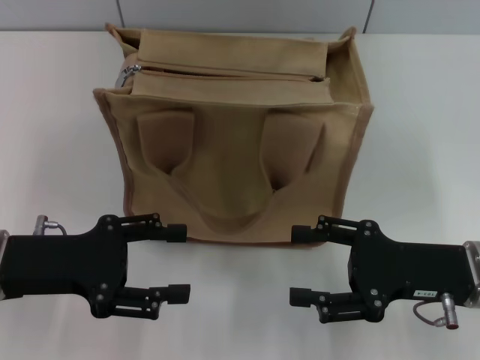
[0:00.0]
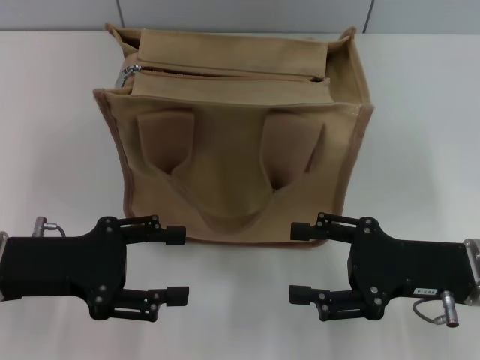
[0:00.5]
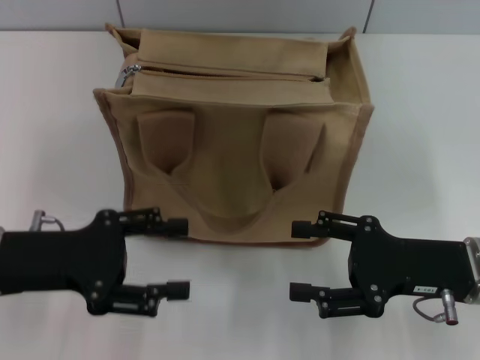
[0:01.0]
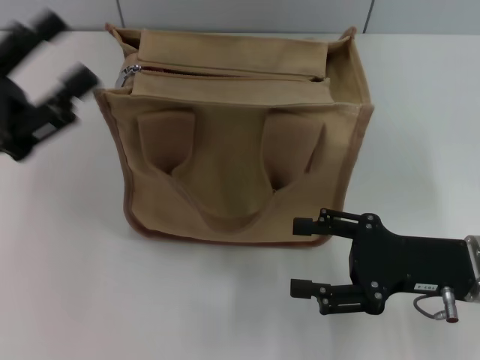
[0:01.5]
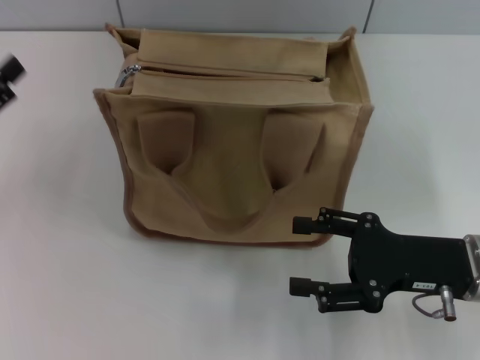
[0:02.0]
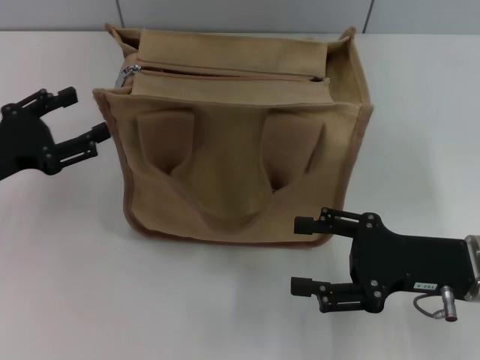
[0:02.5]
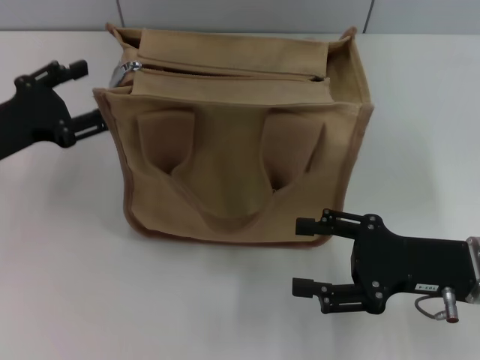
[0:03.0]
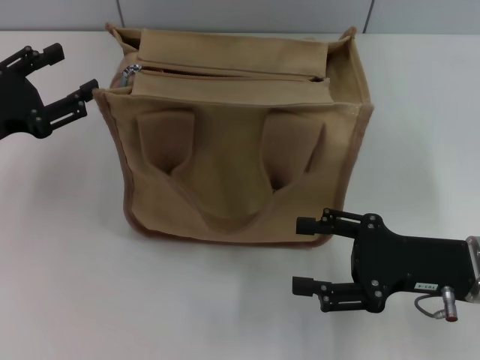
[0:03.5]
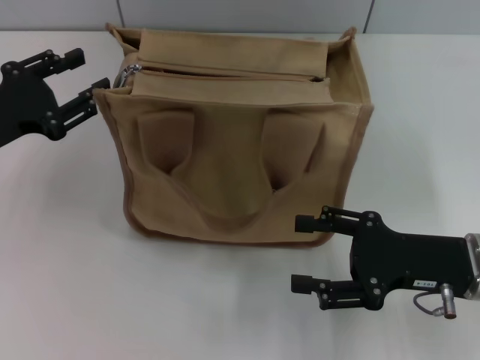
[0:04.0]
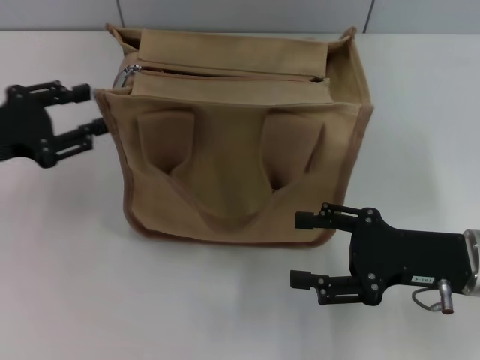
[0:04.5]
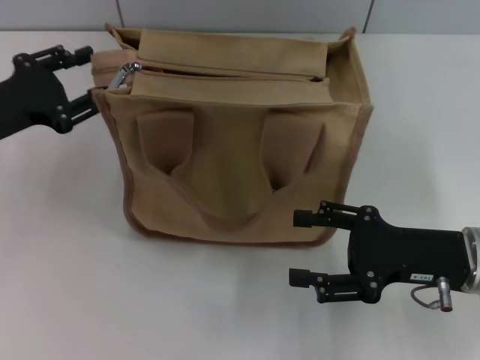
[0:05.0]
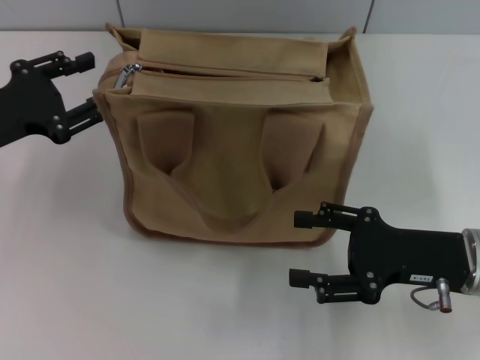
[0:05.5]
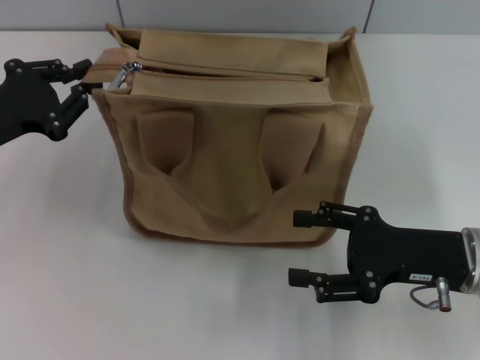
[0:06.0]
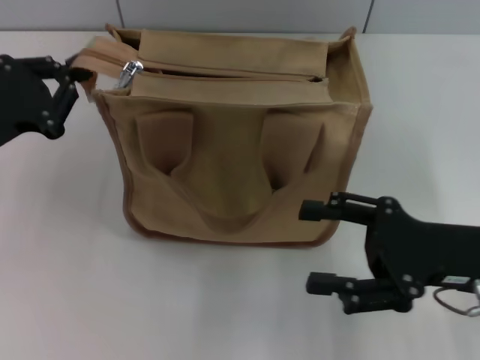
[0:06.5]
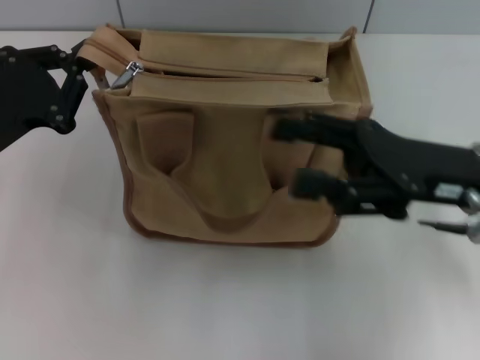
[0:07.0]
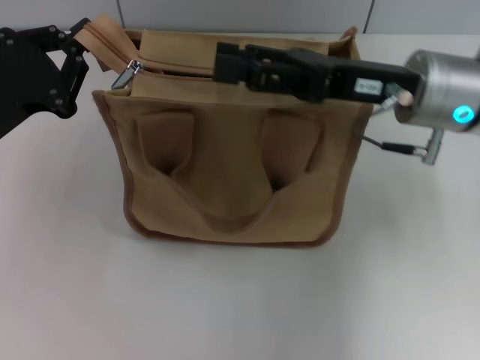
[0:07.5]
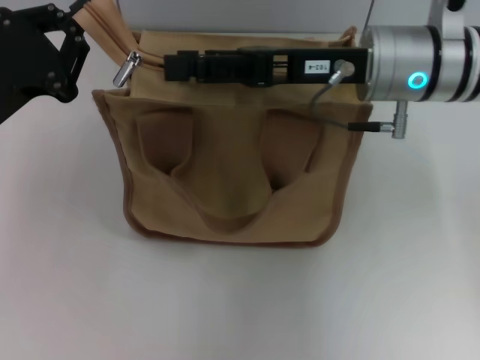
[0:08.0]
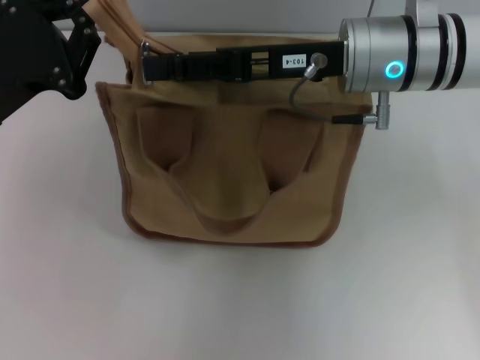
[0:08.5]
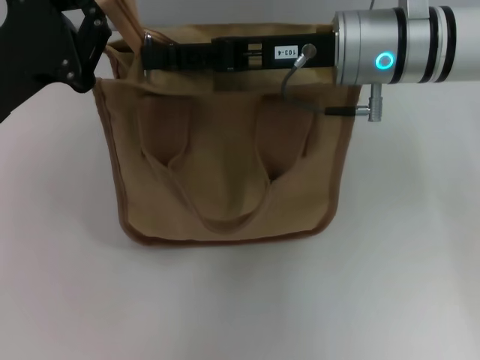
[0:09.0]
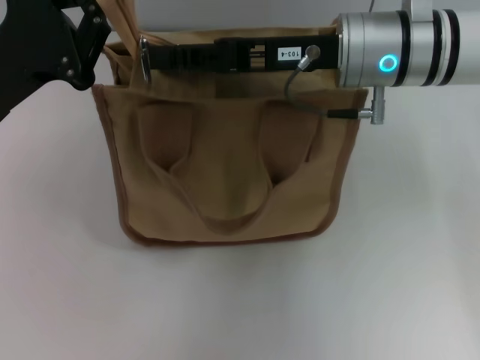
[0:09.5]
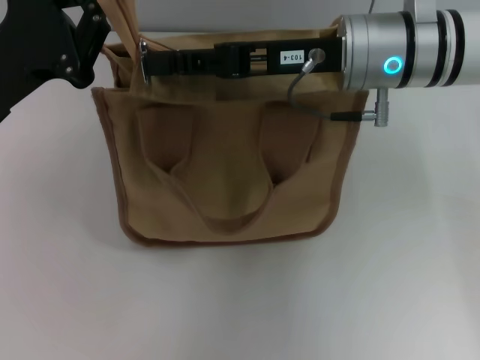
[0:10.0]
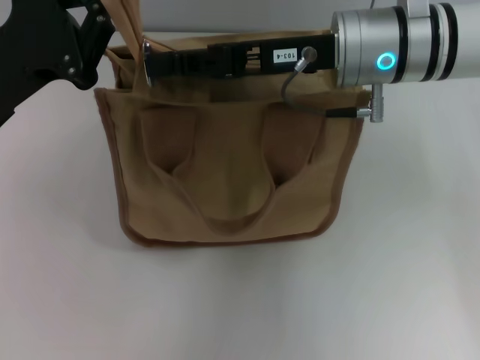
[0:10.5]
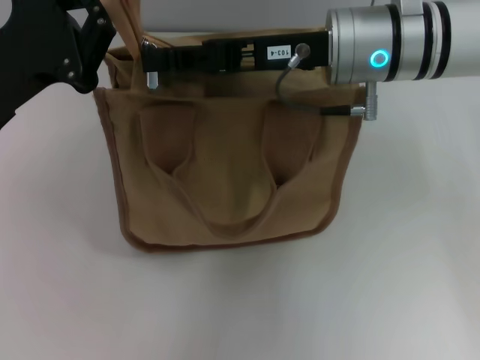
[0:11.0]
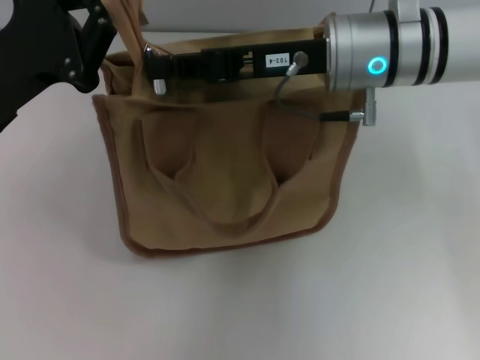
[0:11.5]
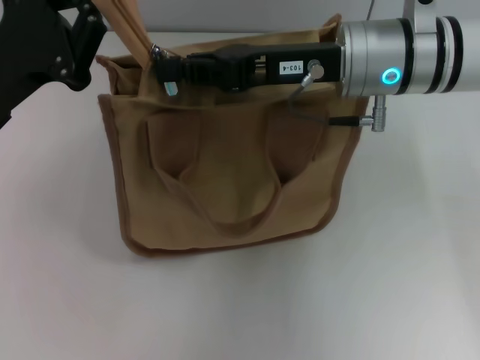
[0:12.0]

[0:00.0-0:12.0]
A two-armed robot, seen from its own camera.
0:00.0 to 0:02.0: The left gripper goes approximately 10 cm to the left.
0:02.0 to 0:04.0: The left gripper is displaced forward by some 5 cm.
0:04.0 to 0:06.0: The grippers make only small movements.
0:06.0 to 0:08.0: The left gripper closes up, while the right gripper travels forward, upward and to the left by about 20 cm.
0:08.0 to 0:10.0: The right gripper closes.
0:10.0 to 0:12.0: The right gripper closes up.

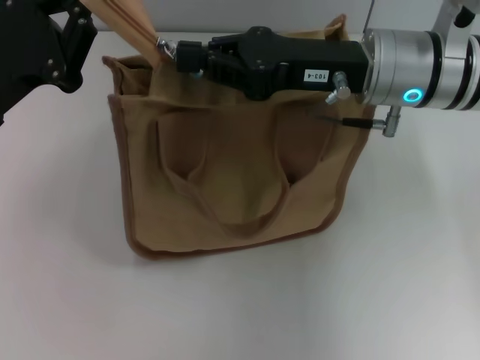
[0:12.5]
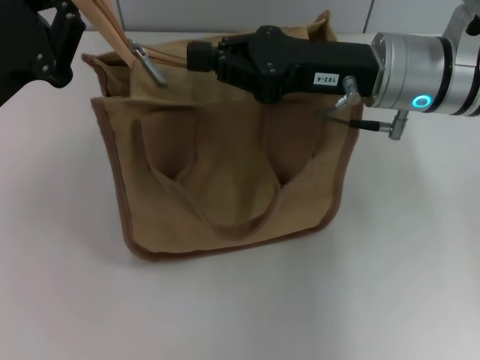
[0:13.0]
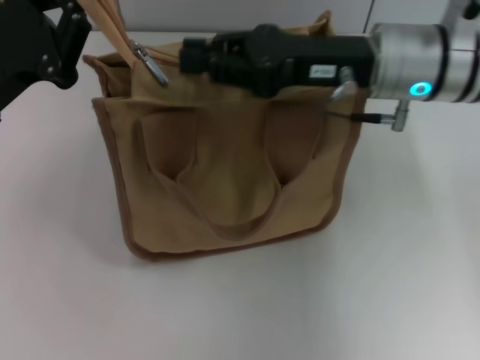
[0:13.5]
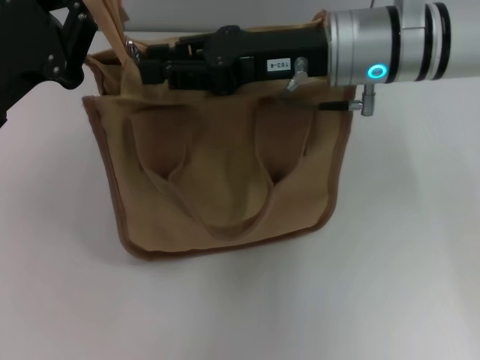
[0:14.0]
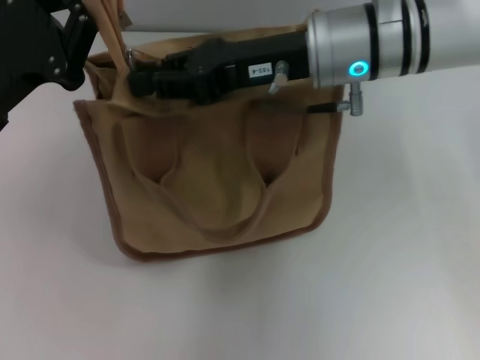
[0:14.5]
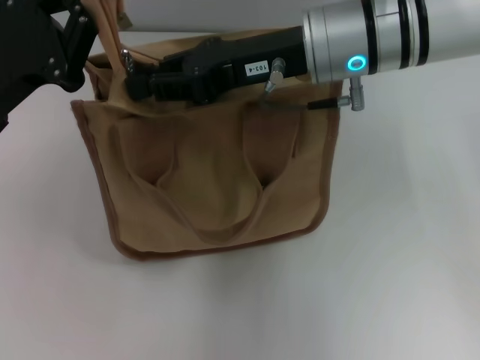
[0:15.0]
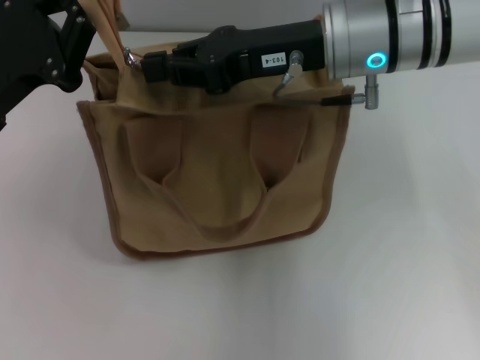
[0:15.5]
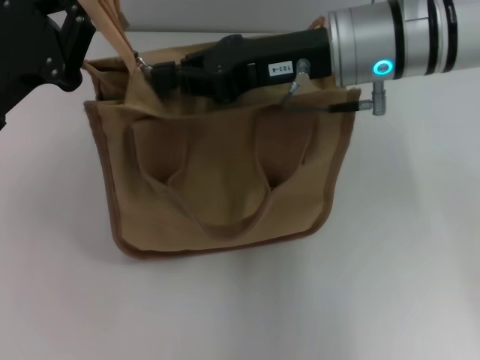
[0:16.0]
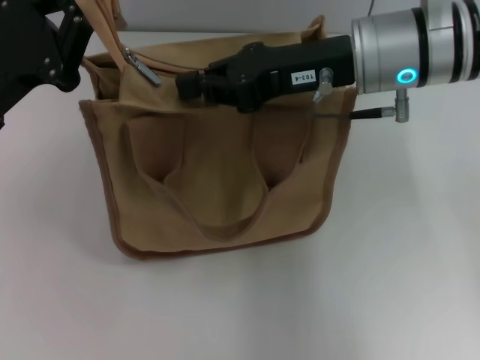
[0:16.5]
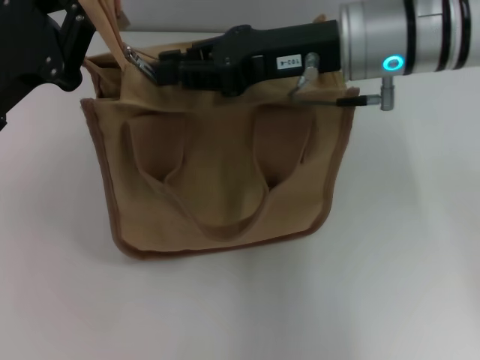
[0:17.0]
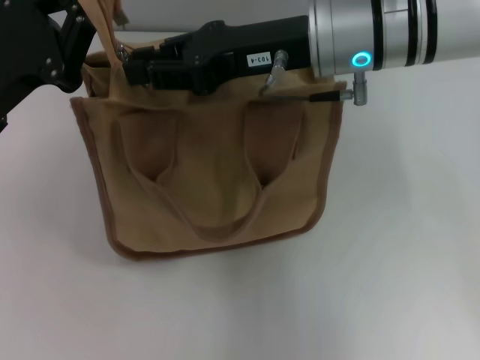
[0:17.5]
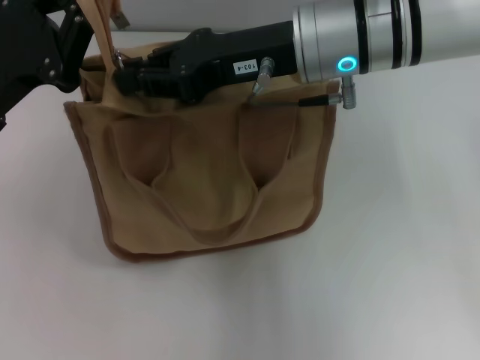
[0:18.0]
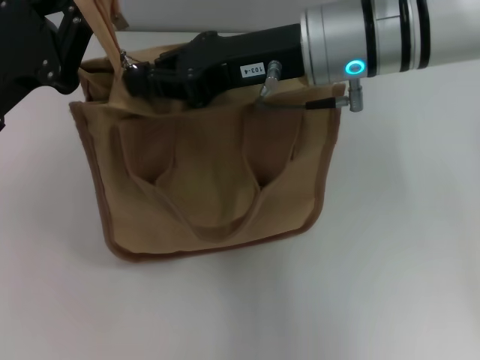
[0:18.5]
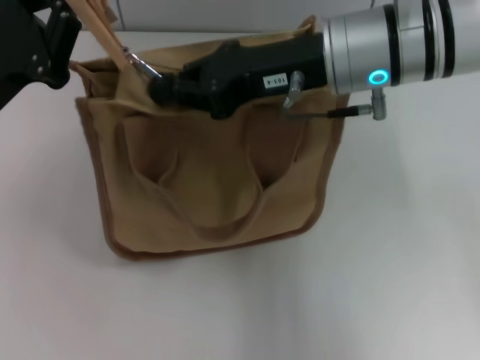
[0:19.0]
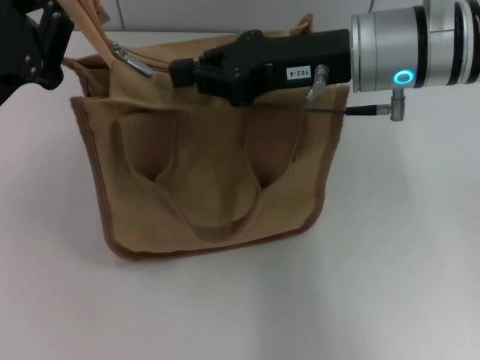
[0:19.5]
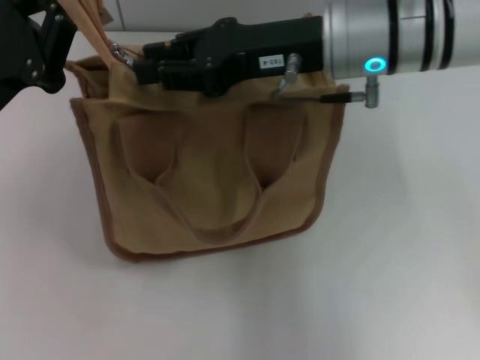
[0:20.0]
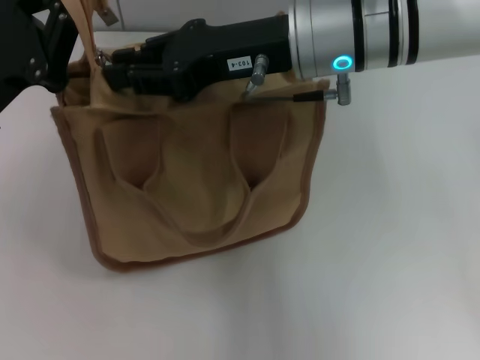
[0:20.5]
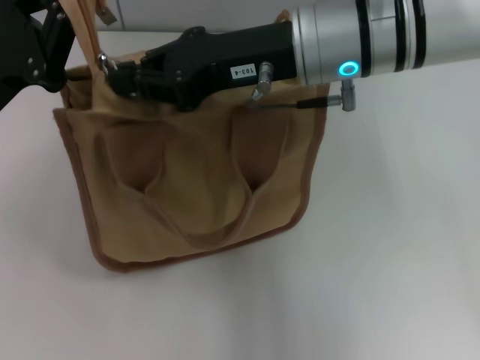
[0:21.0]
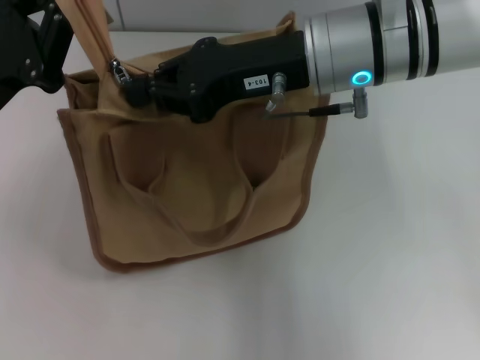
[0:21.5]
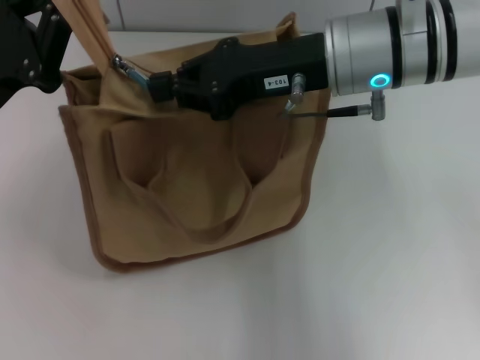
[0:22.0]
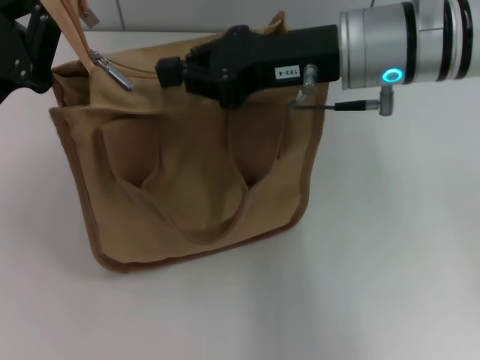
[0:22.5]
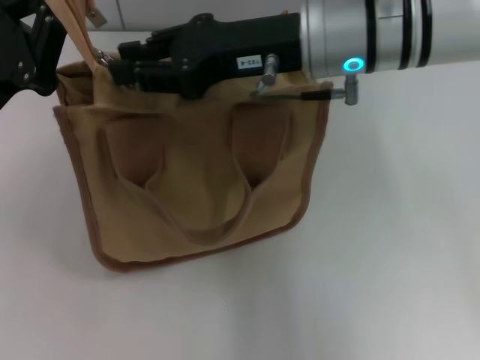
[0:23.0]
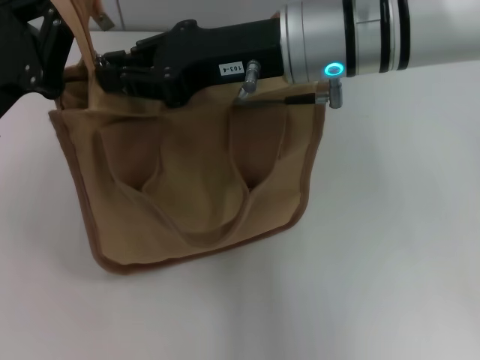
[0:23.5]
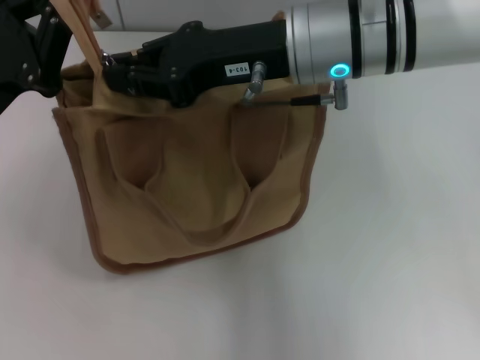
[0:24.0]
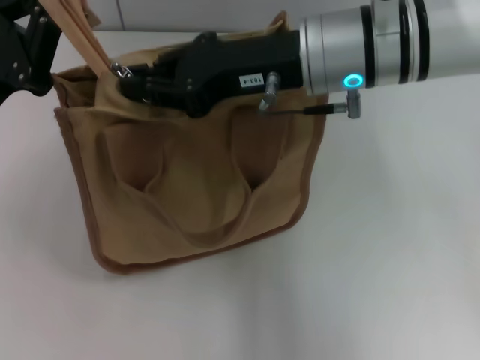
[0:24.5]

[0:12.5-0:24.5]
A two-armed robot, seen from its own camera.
0:12.5 to 0:14.5: The right gripper ends up about 5 cm from where it was.
0:14.5 to 0:24.5: There are only small adjustments of the grippers.

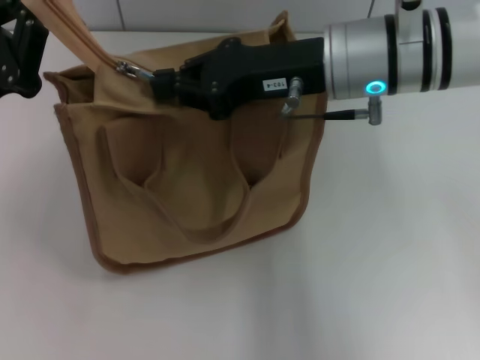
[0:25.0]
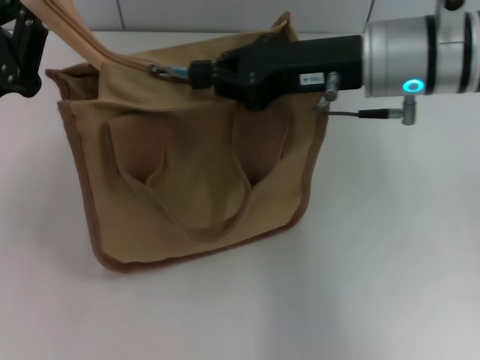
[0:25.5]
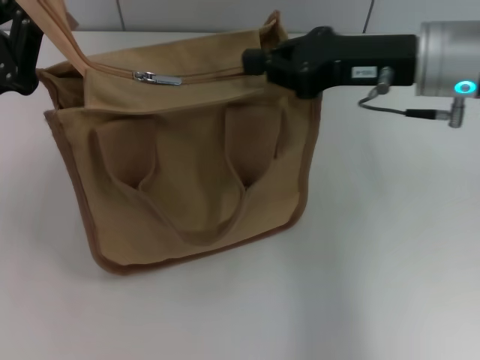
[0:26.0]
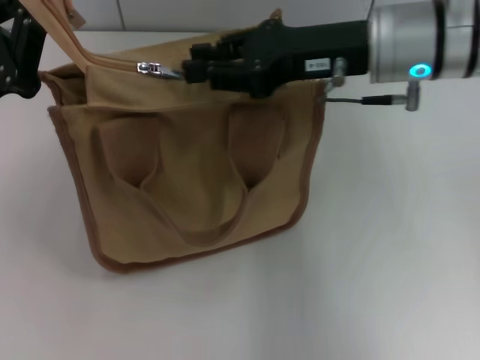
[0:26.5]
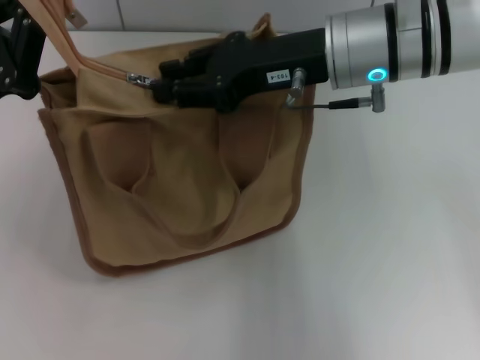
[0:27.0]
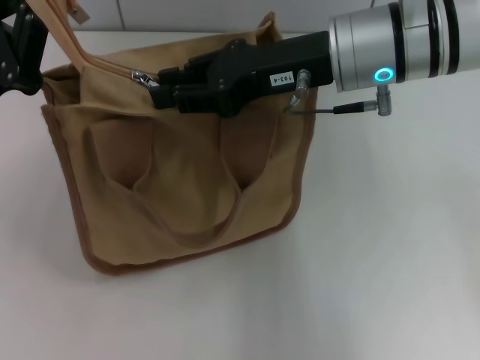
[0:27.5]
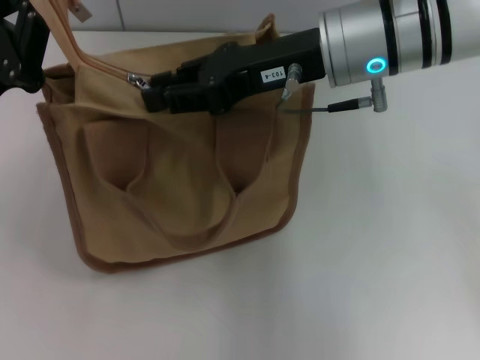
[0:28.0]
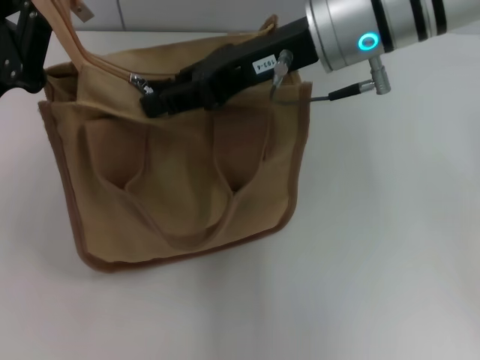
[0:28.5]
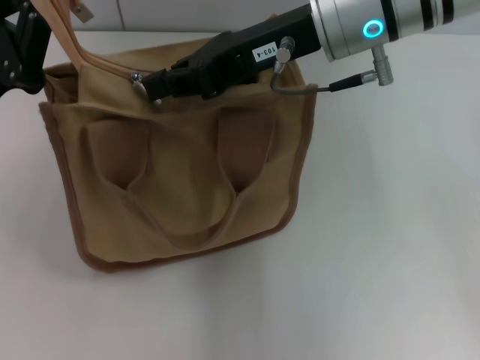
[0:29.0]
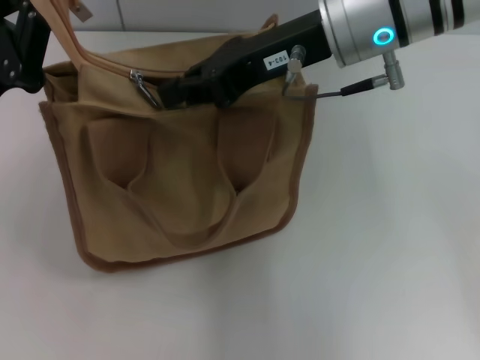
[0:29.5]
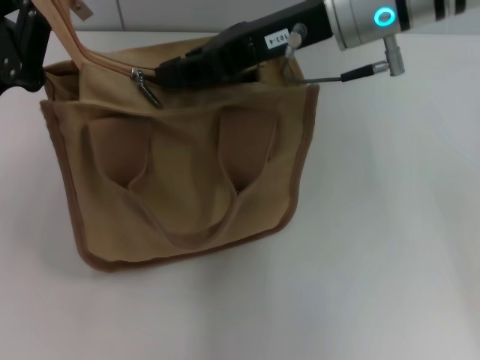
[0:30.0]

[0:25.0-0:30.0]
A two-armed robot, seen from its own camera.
0:27.5 to 0:30.0: The grippers stay close to where they were, moving slightly.
